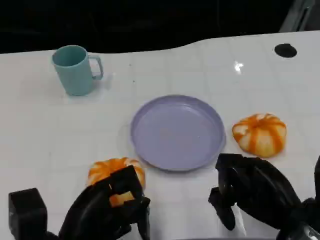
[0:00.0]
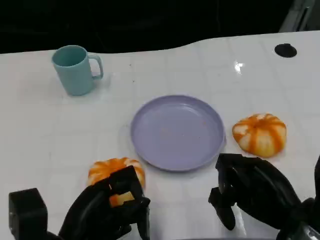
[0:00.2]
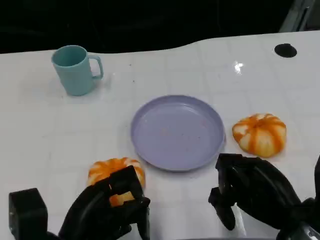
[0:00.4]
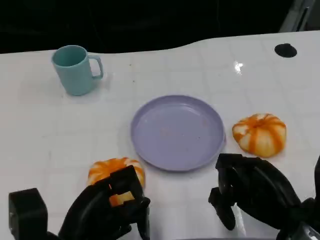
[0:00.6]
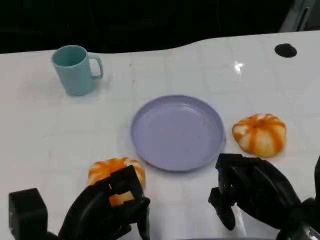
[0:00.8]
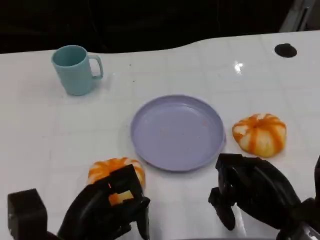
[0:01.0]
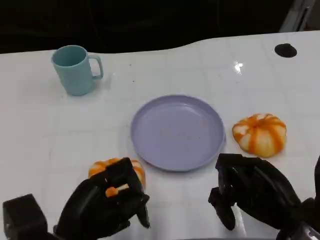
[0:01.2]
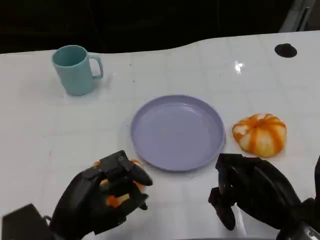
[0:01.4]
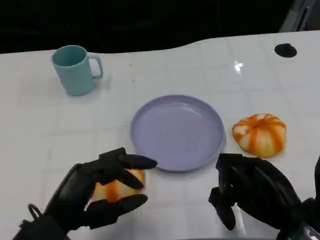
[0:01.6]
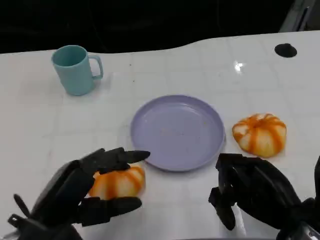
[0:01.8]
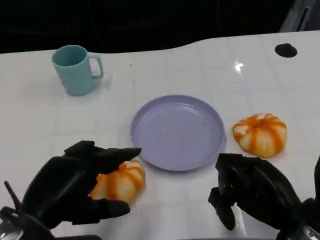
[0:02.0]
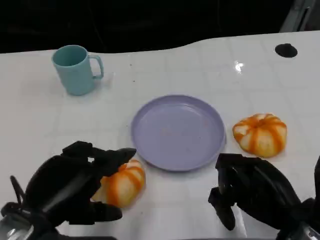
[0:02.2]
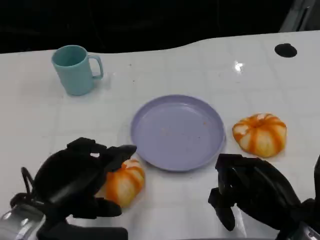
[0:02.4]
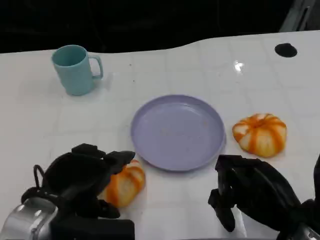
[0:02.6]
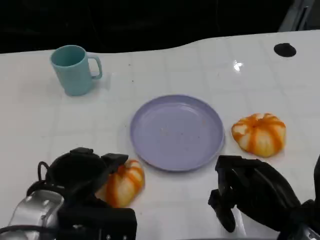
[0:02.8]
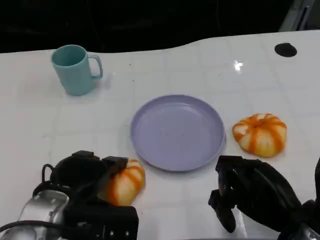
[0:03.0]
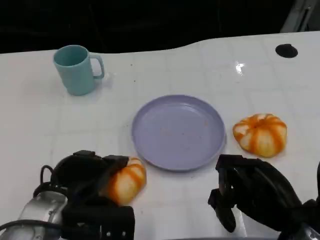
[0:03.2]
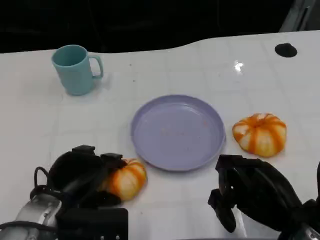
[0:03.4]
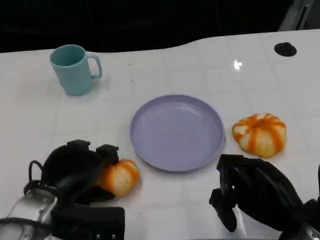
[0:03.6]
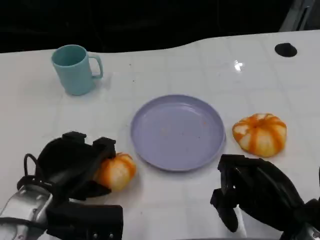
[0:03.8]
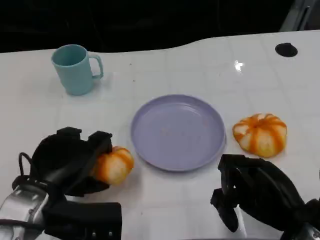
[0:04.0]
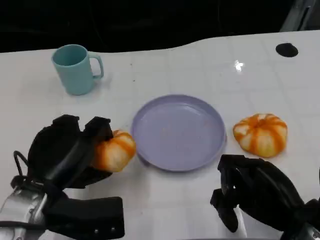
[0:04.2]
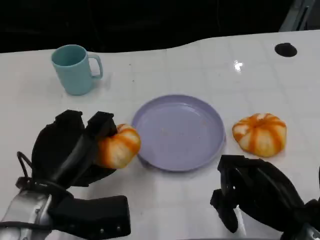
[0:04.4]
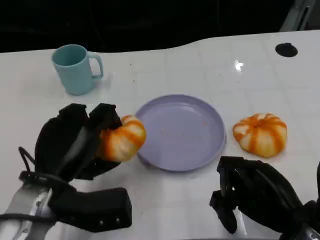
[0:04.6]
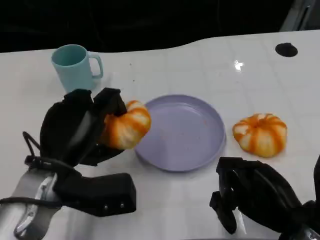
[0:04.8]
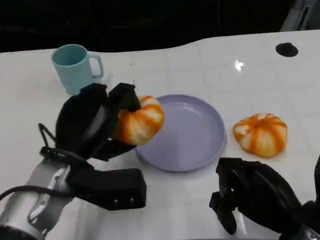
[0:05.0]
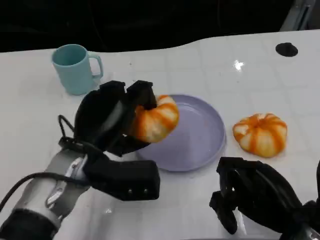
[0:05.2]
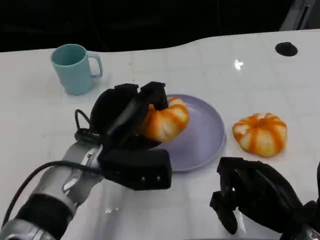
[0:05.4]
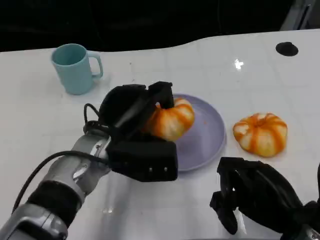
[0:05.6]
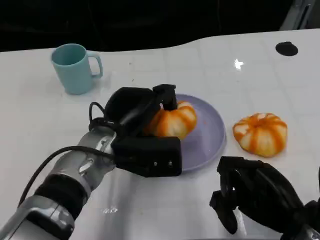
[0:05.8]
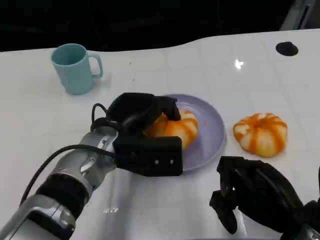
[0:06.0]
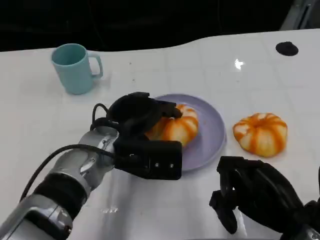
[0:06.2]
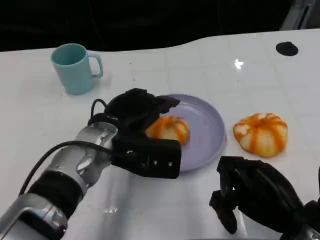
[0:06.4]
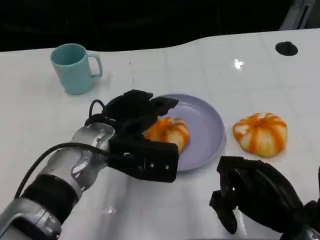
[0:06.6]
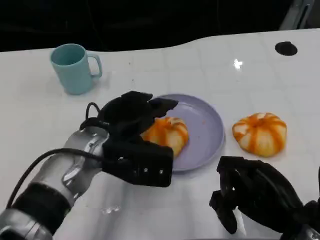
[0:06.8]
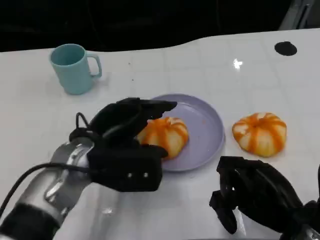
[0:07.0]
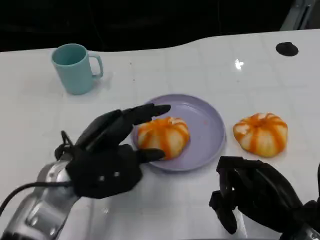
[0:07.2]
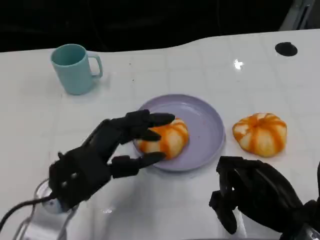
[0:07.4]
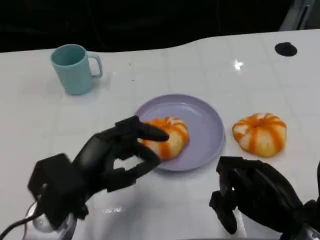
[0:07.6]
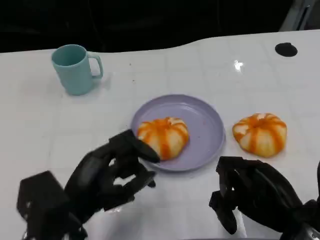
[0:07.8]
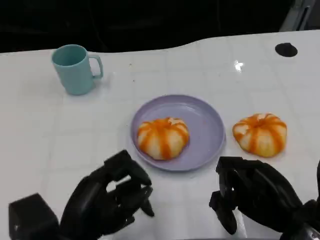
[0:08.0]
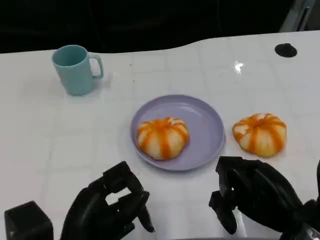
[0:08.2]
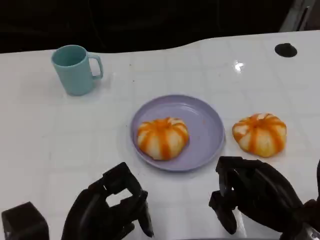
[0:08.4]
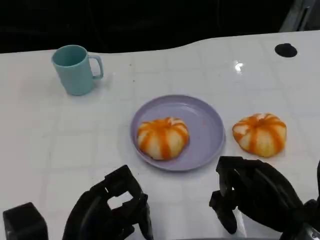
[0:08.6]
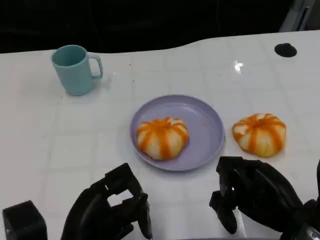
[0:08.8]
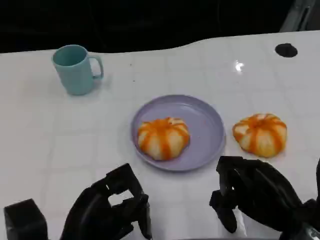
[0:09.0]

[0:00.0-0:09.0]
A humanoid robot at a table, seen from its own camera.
Task of the whole recording: Grasp the bread from the table and place it into the plate.
0:01.6 to 0:03.0: The left hand heads forward, covering about 5 cm.
0:04.4 to 0:06.0: The left hand moves to the right and forward, about 10 cm.
0:06.0 to 0:07.6: The left hand goes some 10 cm backward and to the left.
0:07.6 to 0:09.0: The left hand goes some 5 cm backward.

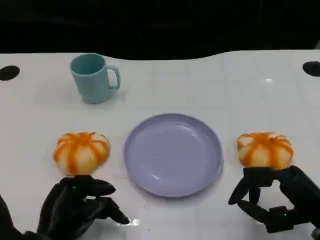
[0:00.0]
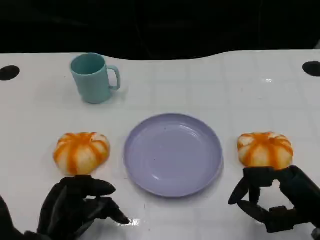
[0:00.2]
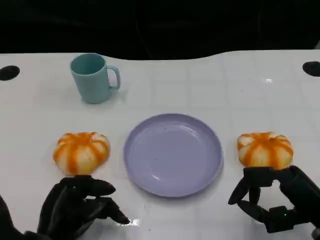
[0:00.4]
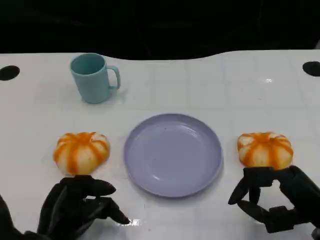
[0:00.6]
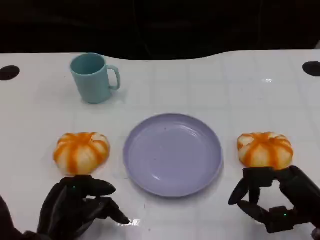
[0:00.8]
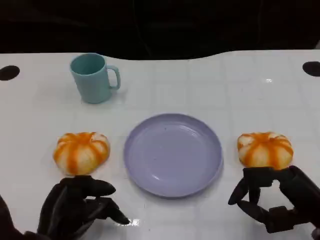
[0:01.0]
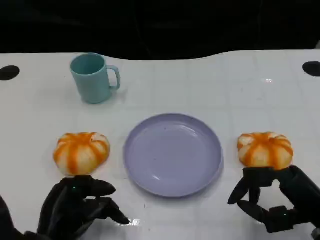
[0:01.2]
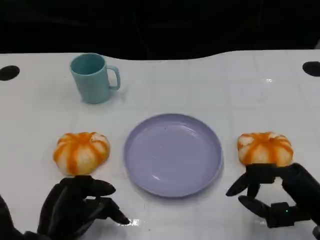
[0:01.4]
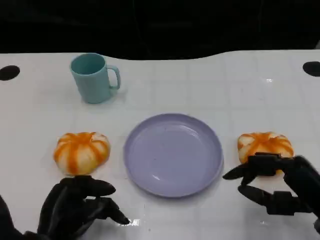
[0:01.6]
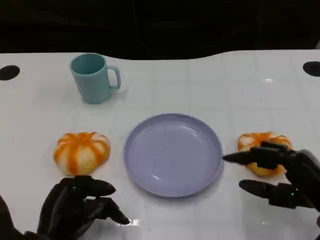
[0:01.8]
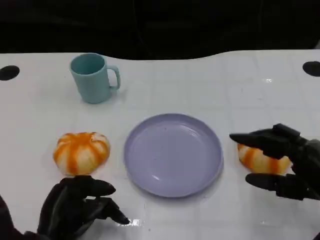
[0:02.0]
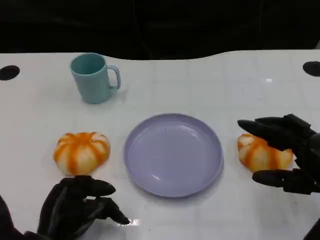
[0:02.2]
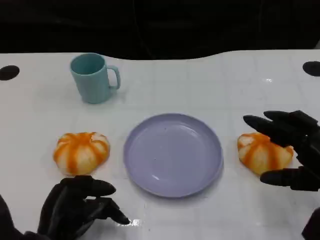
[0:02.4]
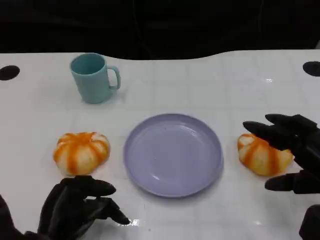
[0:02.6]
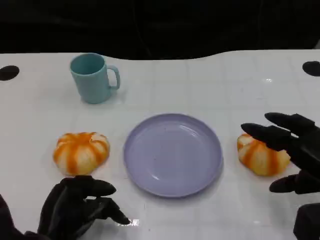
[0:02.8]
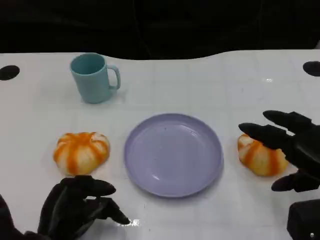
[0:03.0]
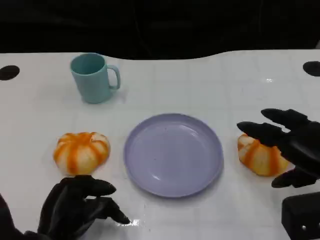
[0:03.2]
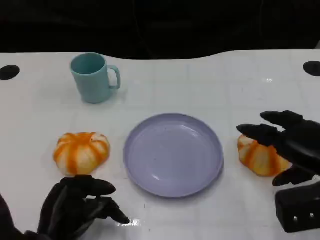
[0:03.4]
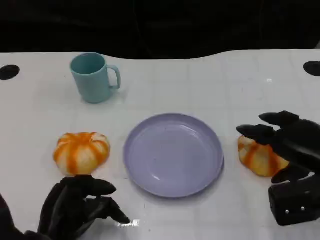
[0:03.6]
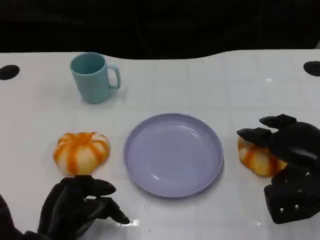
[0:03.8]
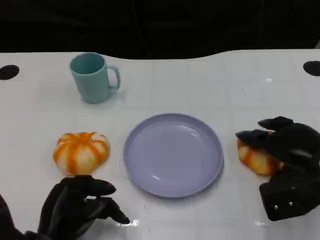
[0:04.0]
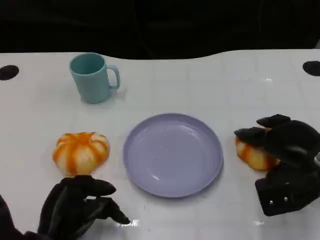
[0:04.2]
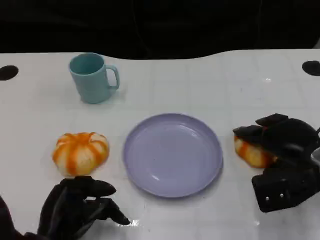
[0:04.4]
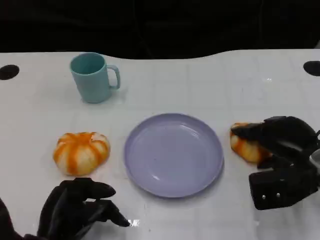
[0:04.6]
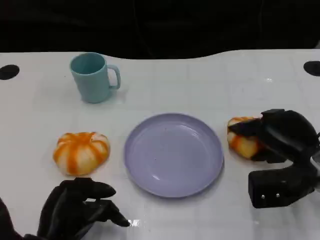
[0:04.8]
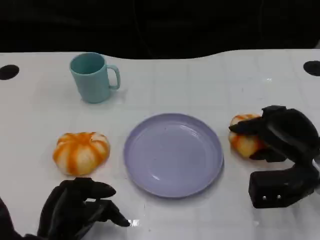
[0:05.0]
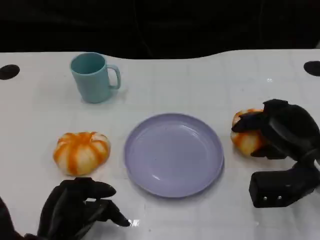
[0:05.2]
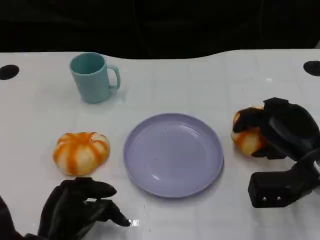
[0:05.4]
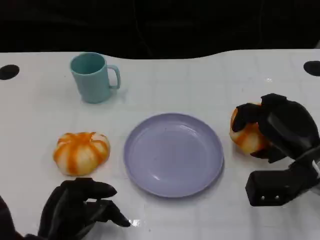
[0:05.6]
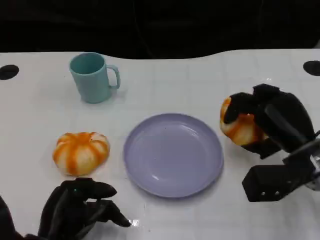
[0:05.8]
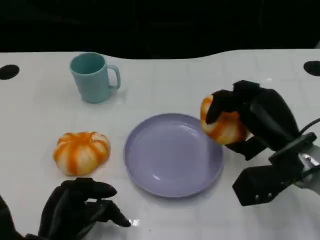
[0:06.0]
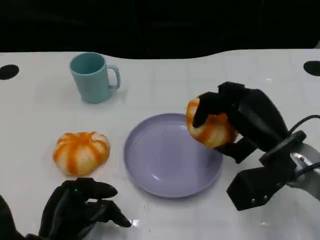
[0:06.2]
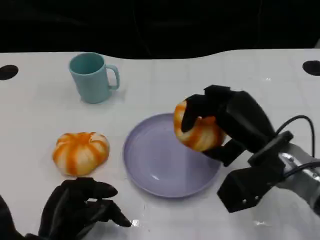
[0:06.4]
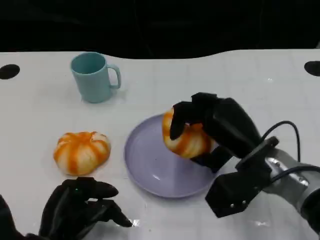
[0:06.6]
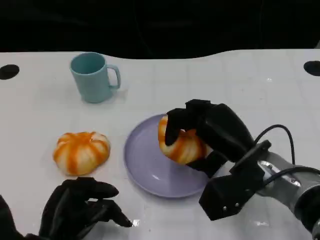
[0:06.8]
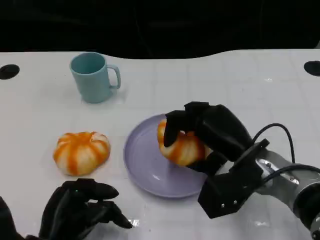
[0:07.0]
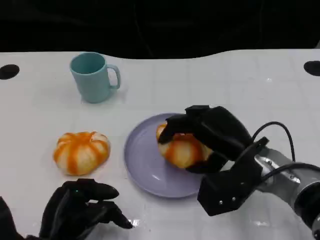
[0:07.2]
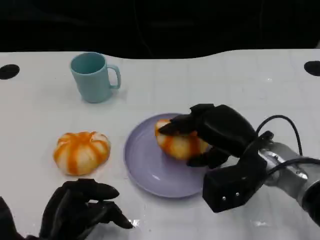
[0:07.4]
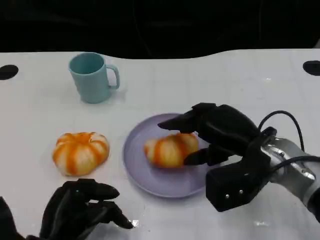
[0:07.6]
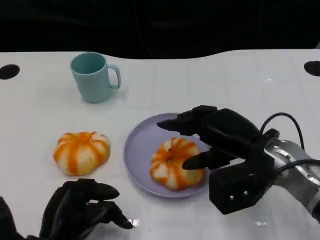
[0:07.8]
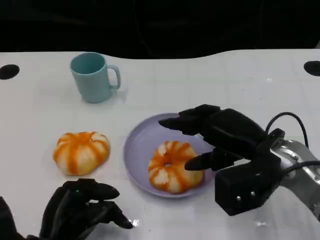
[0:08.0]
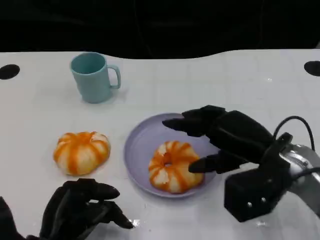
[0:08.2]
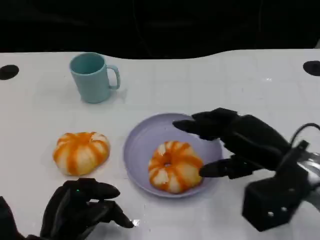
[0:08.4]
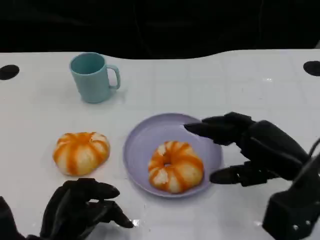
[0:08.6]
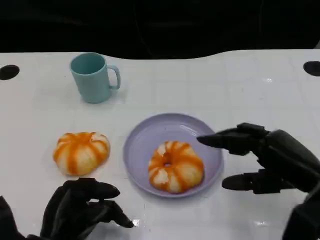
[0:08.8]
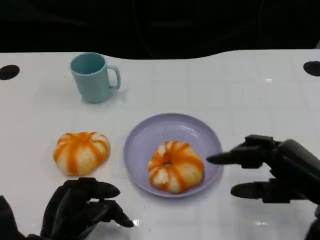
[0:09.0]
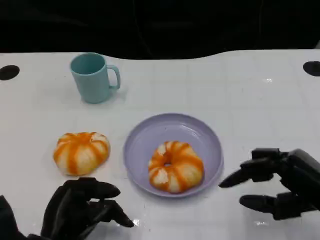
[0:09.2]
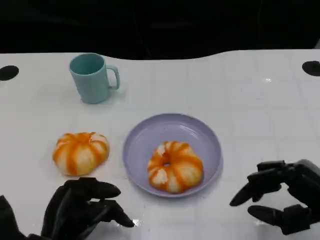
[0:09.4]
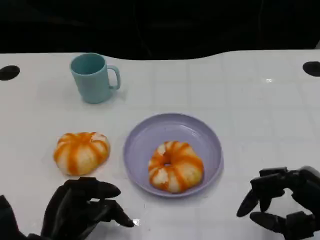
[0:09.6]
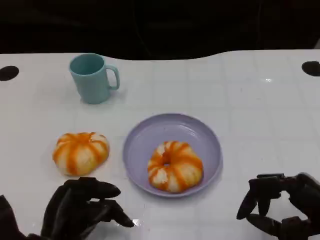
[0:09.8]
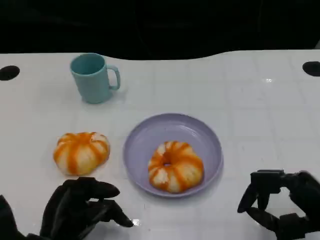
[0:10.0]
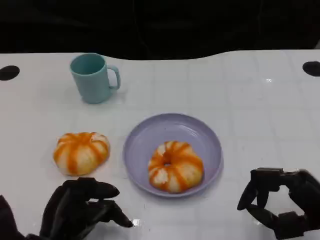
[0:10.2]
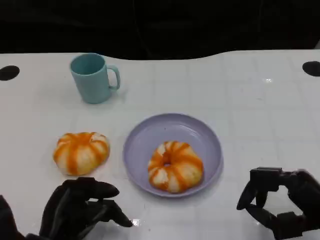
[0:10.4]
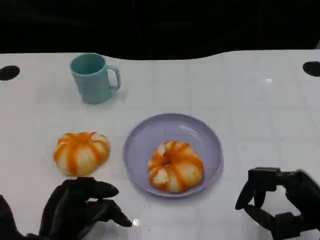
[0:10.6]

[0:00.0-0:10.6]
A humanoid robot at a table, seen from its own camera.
Task of the whole recording: Grasp the bread from the table and place it into the plate.
0:00.0 to 0:01.6: The hands stay close to where they were, moving slightly.
0:01.6 to 0:03.0: The right hand ends up approximately 5 cm from where it was.
0:03.0 to 0:04.6: The right hand goes some 5 cm forward.
0:07.6 to 0:09.0: The right hand is displaced to the right and backward by about 10 cm.
0:09.0 to 0:10.6: The hands move only a little.

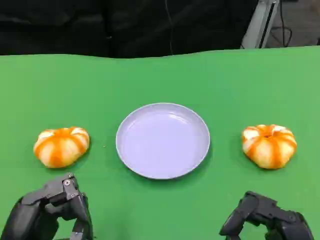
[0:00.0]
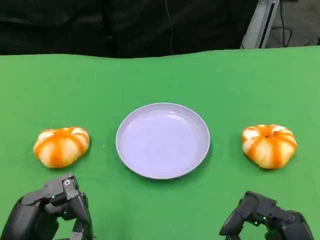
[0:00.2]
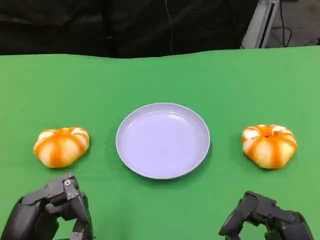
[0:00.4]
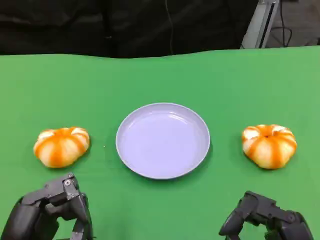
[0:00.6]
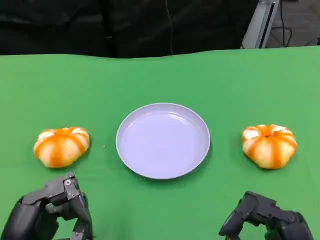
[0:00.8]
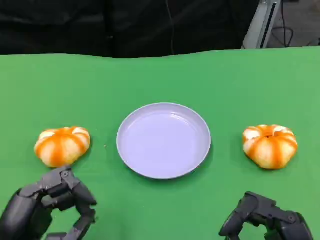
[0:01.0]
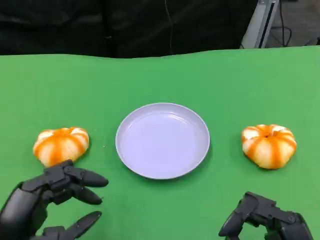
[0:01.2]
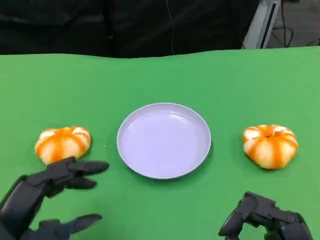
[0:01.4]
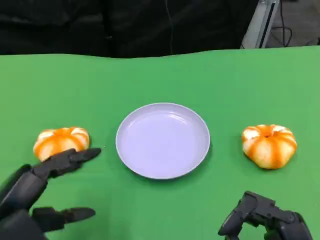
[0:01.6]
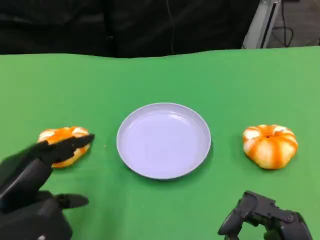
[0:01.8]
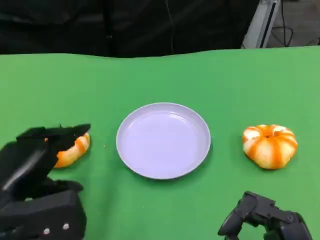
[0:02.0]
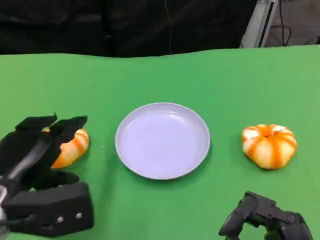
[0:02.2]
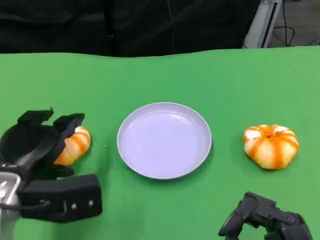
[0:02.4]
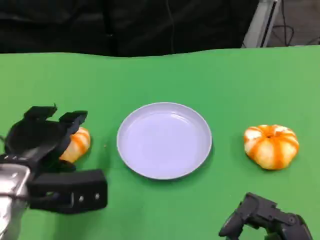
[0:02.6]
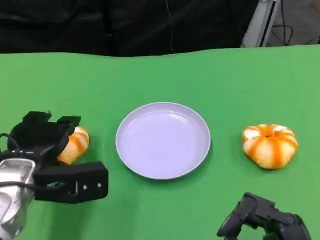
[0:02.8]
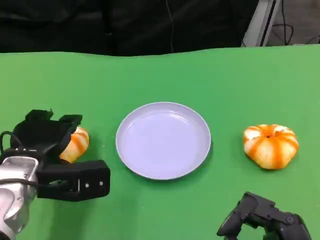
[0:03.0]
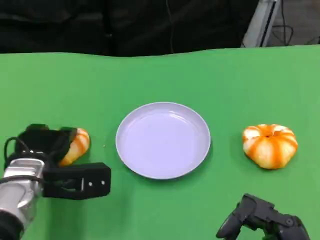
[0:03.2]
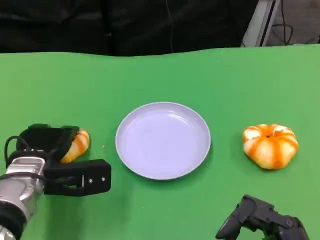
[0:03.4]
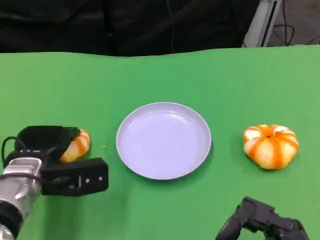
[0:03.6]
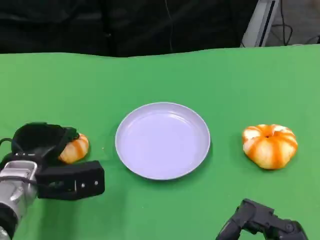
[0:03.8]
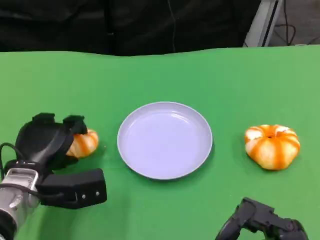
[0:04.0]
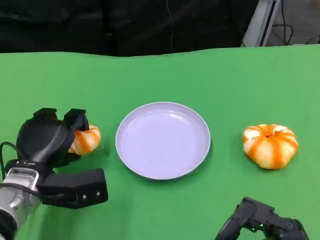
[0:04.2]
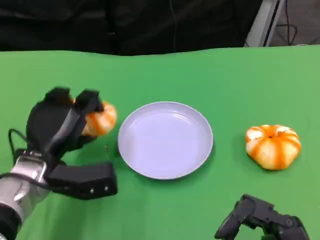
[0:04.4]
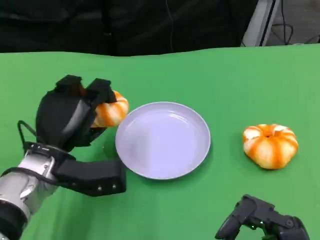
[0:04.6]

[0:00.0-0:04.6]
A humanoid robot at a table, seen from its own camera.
Task of the whole recording: Grasp the bread from the table and place it into the plate.
0:00.0 to 0:01.6: The left hand ends up about 5 cm from where it was.
0:01.6 to 0:03.0: The left hand moves forward, roughly 10 cm.
